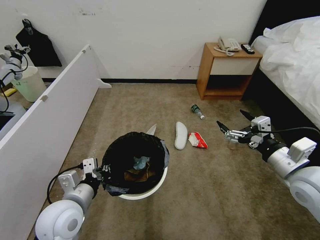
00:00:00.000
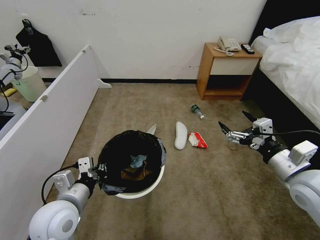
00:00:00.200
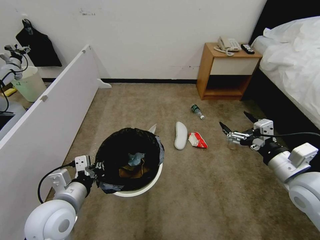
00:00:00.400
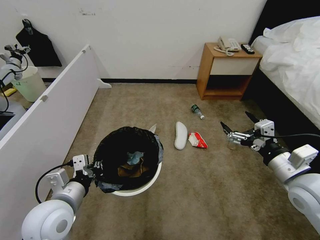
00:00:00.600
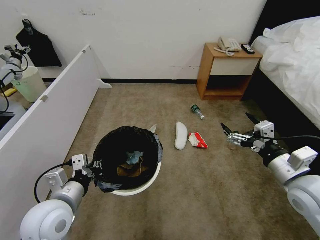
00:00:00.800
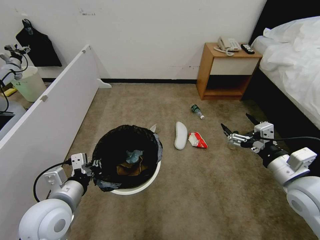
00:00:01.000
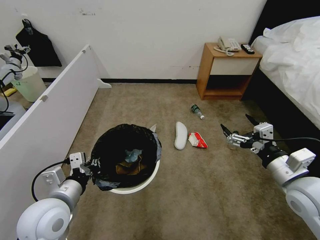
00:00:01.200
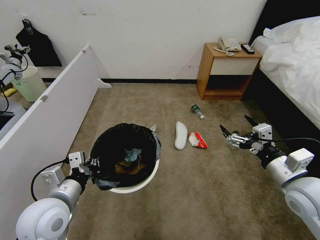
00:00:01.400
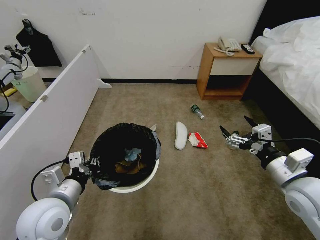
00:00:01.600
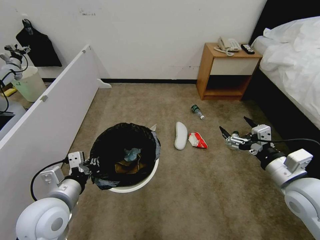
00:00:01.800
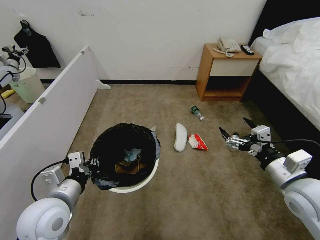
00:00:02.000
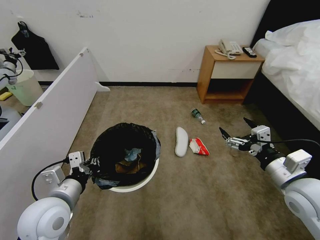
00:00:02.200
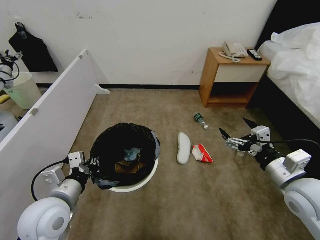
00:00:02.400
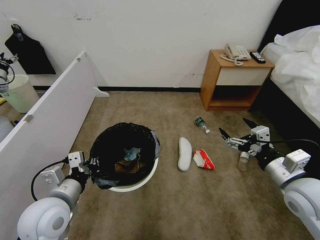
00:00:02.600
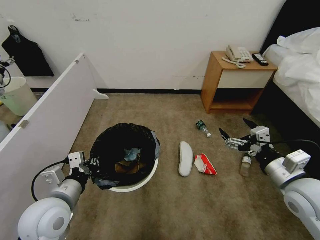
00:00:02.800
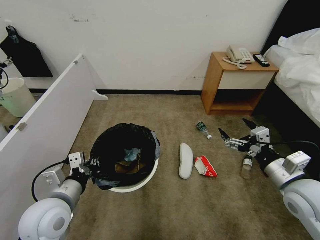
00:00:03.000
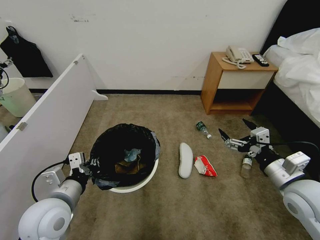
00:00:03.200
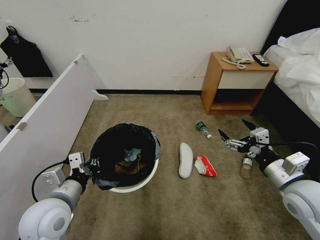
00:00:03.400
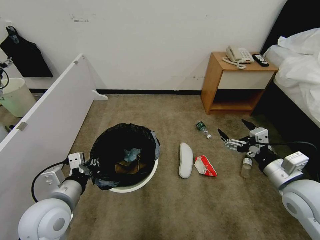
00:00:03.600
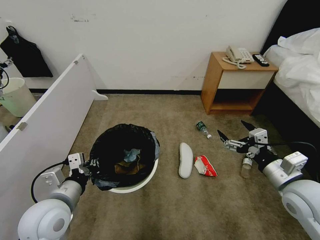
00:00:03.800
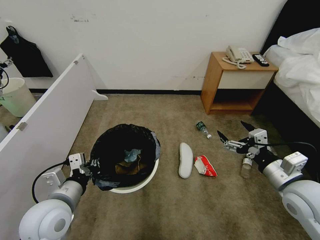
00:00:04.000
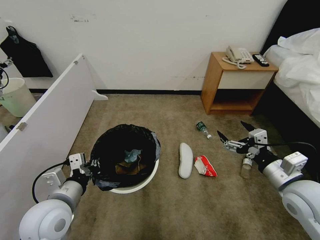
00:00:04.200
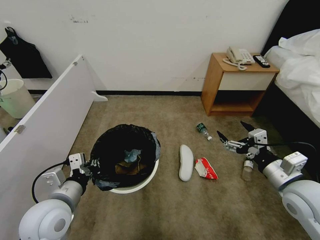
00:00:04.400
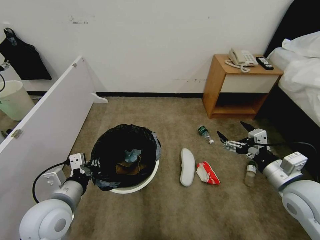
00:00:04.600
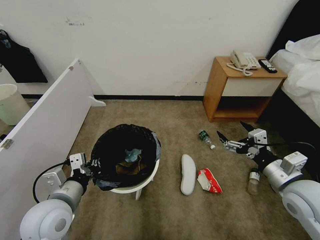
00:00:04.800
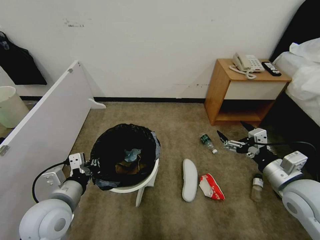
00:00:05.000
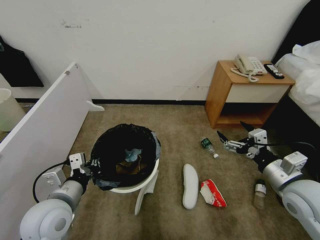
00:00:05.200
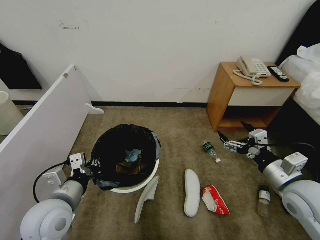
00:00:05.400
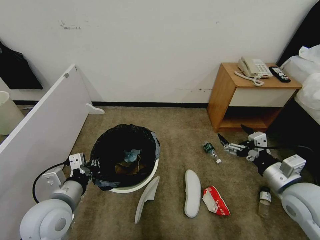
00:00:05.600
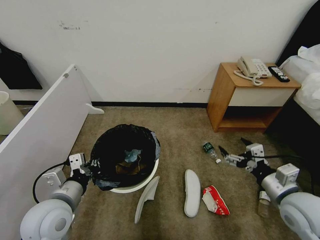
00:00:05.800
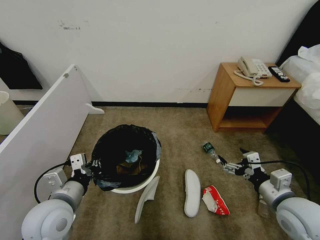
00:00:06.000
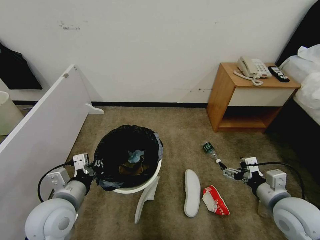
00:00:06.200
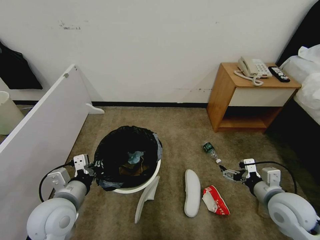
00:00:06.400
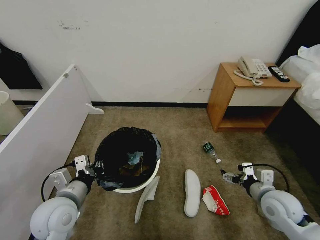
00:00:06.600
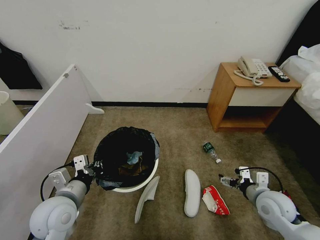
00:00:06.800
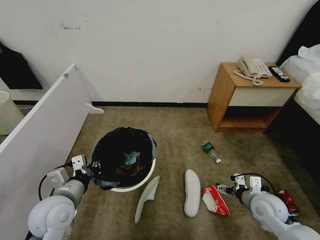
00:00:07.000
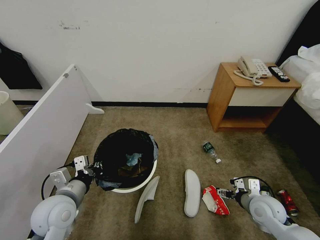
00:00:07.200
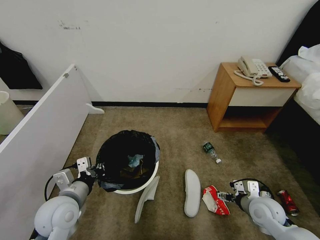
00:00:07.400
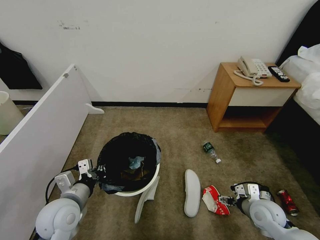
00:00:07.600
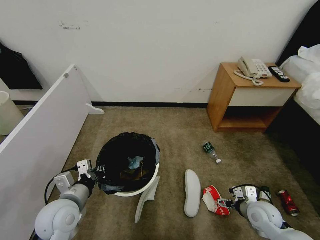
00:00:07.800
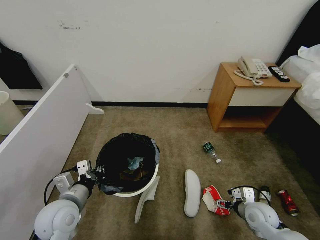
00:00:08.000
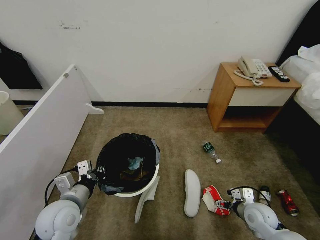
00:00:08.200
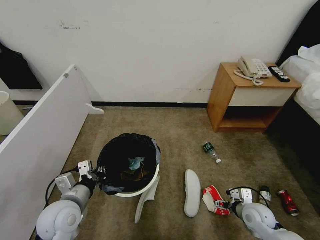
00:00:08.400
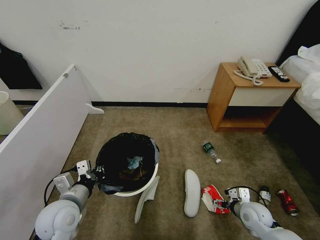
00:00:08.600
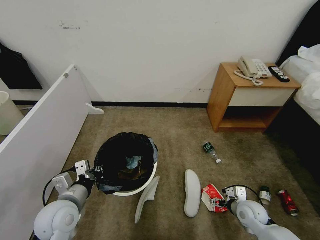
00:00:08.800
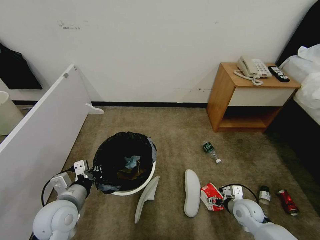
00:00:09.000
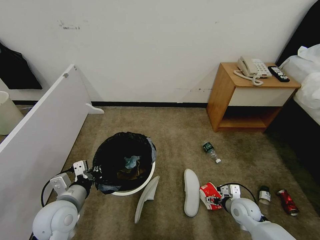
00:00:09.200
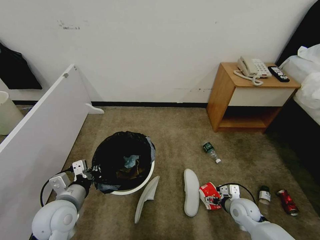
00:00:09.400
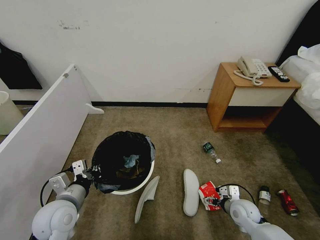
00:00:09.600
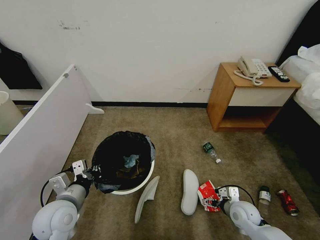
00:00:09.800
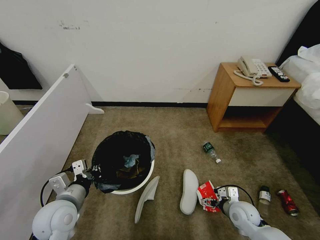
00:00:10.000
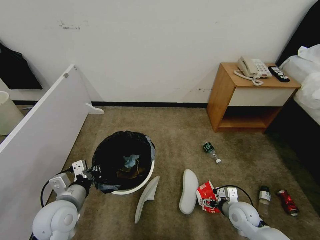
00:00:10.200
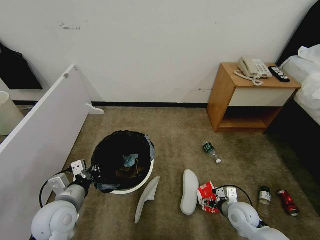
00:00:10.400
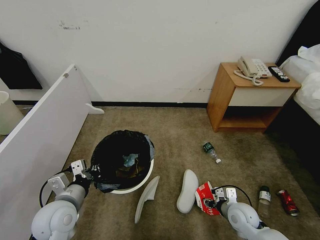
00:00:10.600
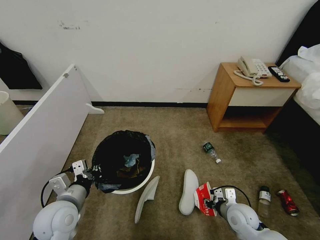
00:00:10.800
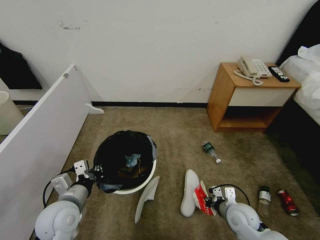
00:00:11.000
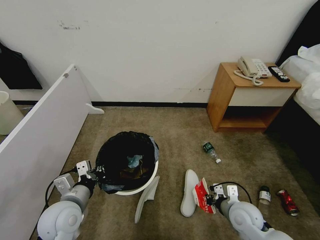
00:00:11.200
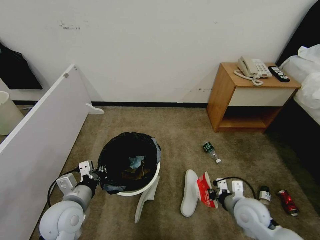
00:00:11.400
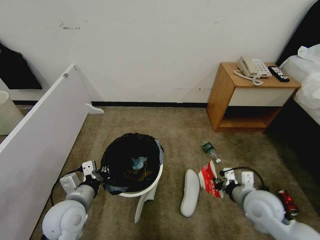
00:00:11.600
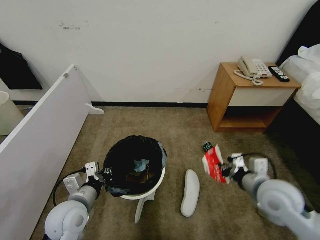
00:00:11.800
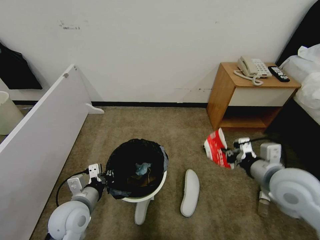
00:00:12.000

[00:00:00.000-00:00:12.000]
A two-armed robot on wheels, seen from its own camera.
Task of the whole recording: Pick up the trash bin, then pick up the garbage from the floor and place it into the trash bin.
00:00:00.000 to 00:00:01.600: The grippers stay close to where they were, moving slightly.
00:00:03.000 to 00:00:04.400: Neither gripper changes place.
00:00:04.400 to 00:00:06.000: The right gripper shifts roughly 5 cm downward.
00:00:06.000 to 00:00:07.600: The right gripper travels downward by approximately 15 cm.
00:00:07.600 to 00:00:09.000: The right gripper heads downward, covering roughly 5 cm.
00:00:09.000 to 00:00:10.400: The grippers stay close to where they were, moving slightly.
00:00:10.400 to 00:00:12.000: The right gripper travels upward by approximately 25 cm, and closes.

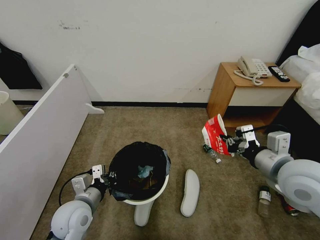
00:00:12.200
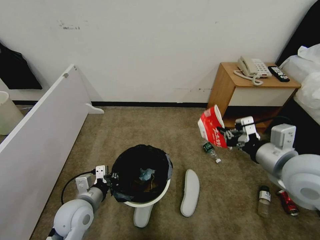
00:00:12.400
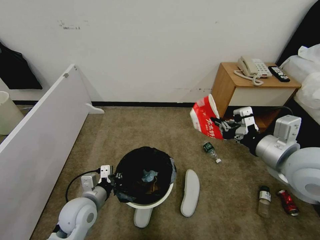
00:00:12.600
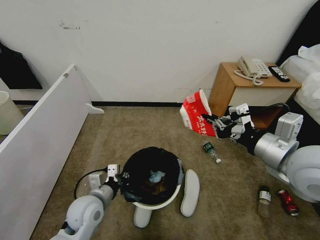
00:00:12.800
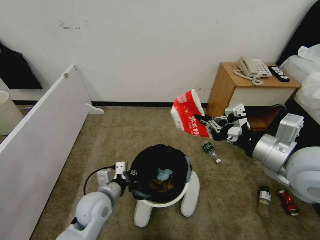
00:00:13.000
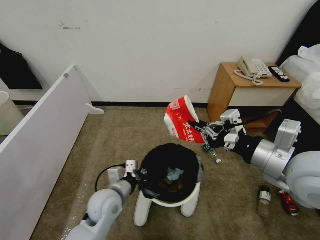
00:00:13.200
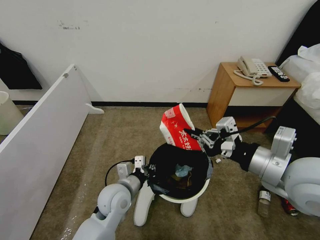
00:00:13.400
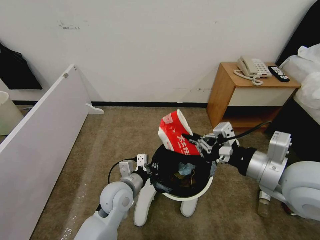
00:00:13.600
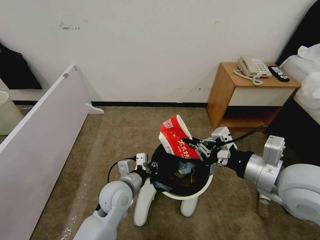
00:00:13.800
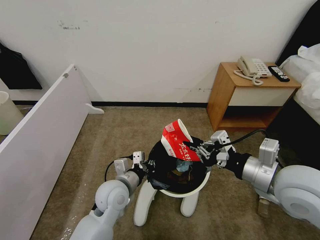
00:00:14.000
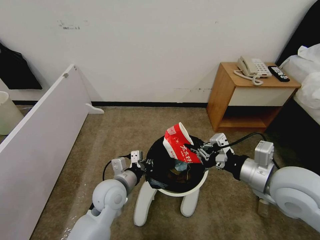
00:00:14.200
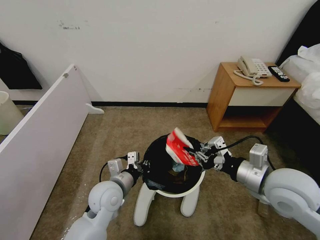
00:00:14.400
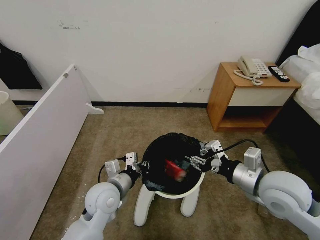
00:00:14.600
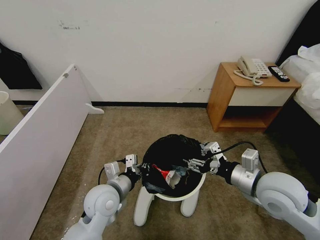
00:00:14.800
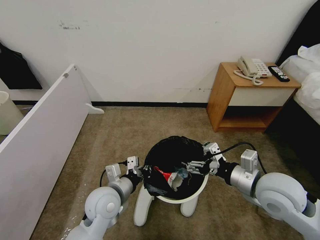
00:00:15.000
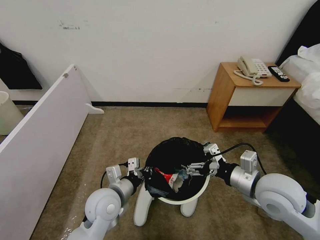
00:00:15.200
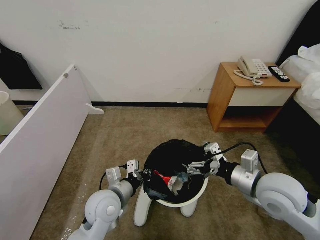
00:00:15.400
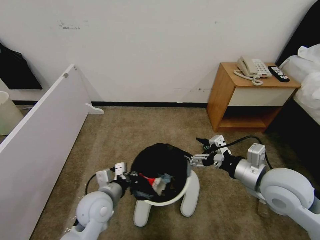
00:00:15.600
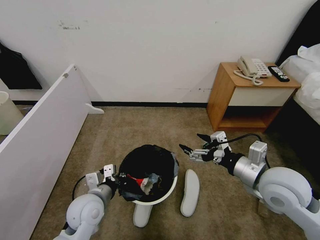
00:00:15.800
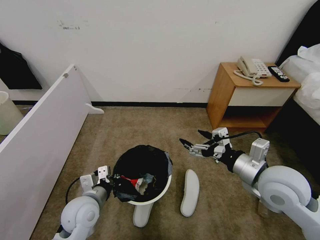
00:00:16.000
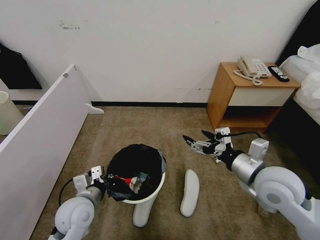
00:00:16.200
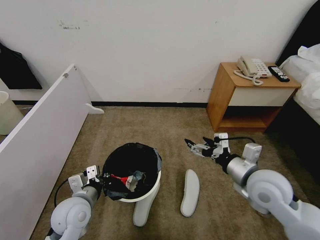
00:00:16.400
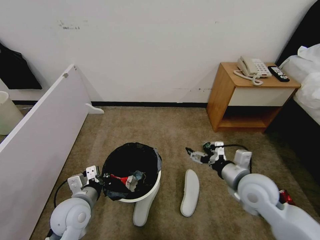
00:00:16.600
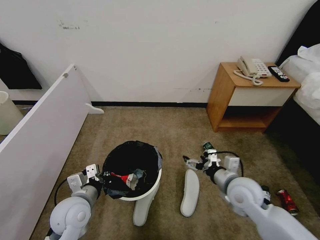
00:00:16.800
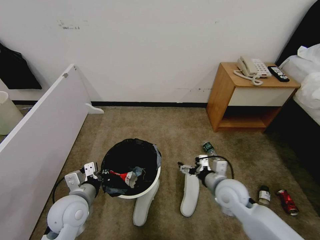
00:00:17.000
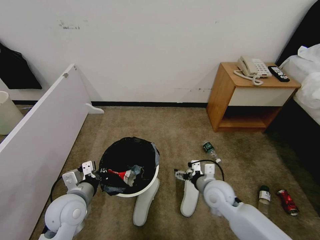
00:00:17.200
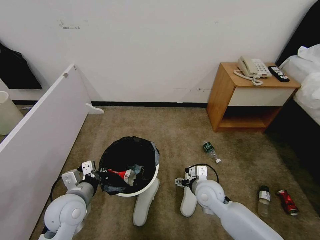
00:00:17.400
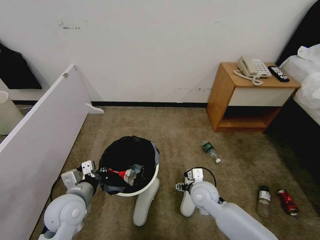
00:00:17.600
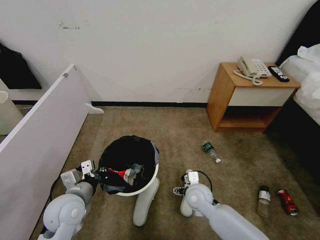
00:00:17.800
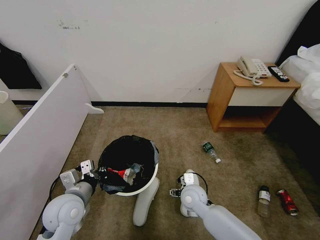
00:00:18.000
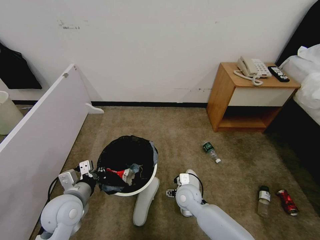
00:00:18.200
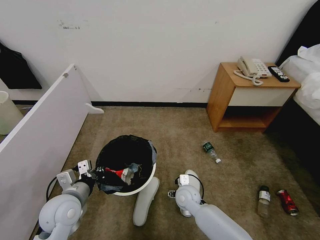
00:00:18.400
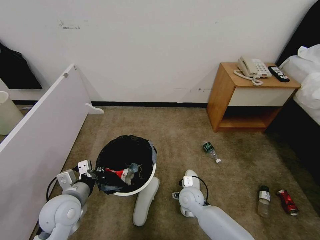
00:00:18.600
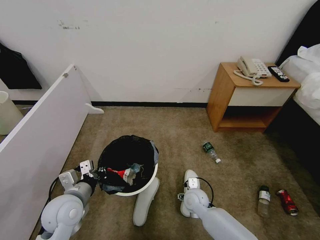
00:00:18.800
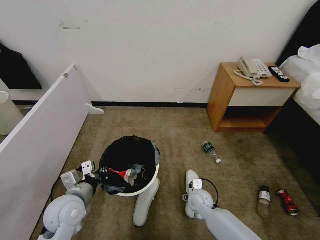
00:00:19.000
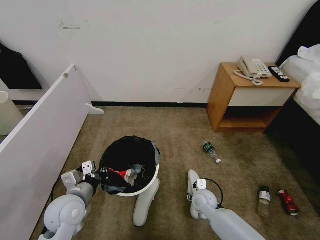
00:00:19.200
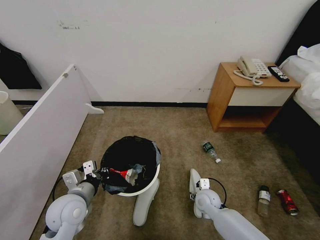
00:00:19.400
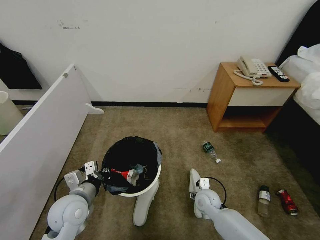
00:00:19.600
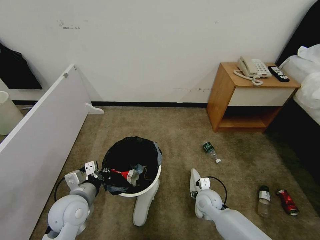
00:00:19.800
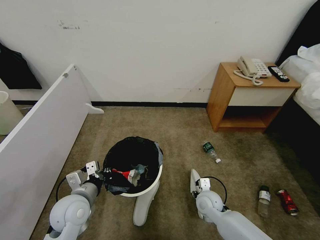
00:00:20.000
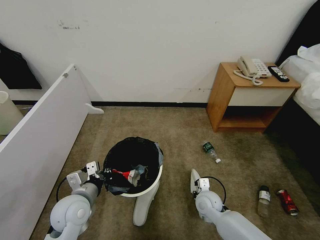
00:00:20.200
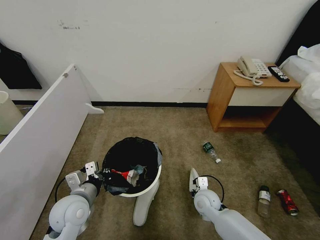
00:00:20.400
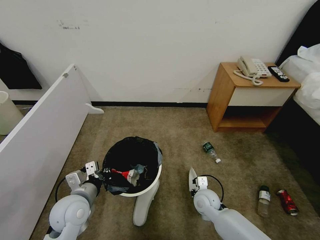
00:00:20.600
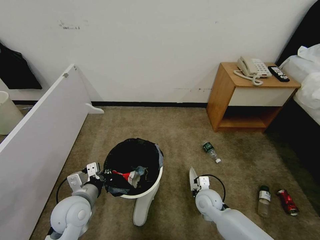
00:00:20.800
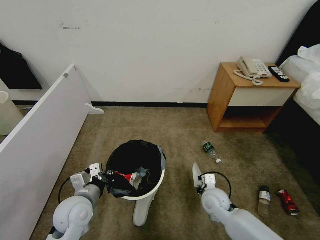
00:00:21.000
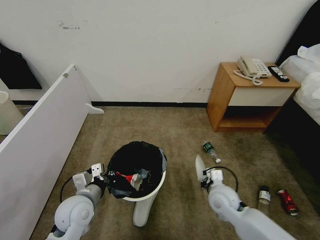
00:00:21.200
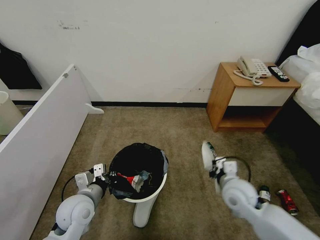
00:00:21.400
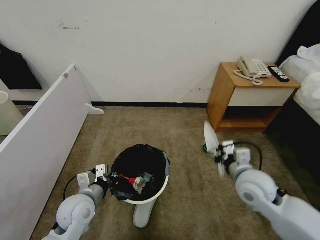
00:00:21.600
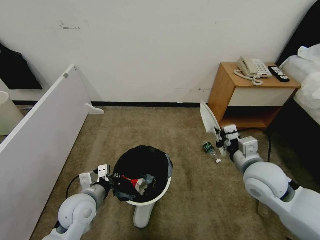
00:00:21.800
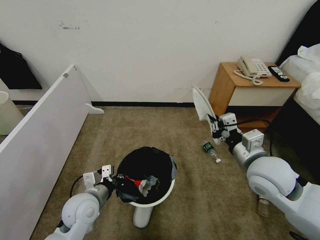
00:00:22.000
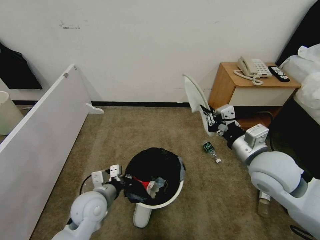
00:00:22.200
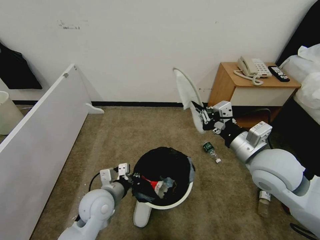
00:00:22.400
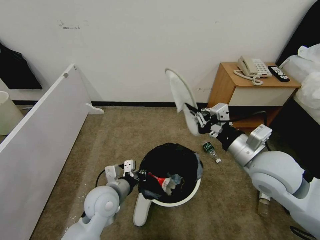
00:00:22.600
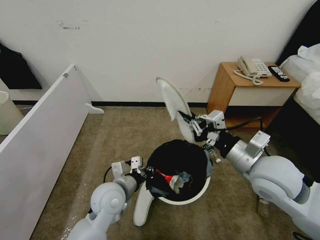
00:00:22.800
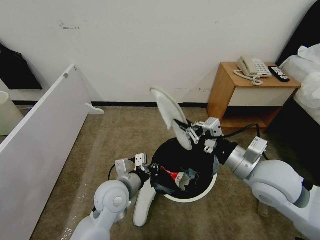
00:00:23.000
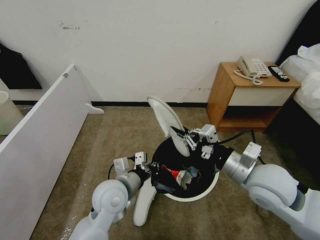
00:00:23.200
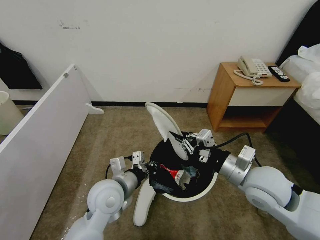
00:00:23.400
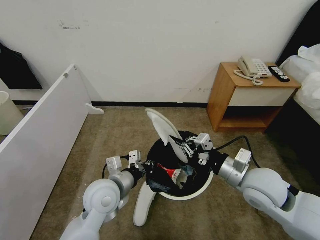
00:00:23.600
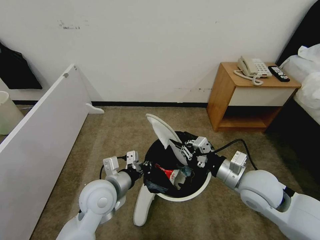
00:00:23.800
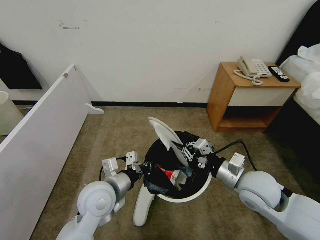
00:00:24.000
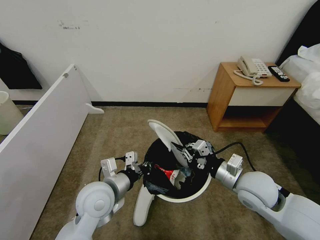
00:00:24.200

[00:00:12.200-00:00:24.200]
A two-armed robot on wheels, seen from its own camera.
Task of the whole recording: Pick up the trash bin, then pick up the garbage from the floor and place it into the trash bin.
00:00:12.200 to 00:00:13.800: The left gripper goes about 15 cm to the right and forward; the right gripper shifts by some 5 cm.
00:00:13.800 to 00:00:15.200: The right gripper is displaced downward by some 10 cm, and opens its fingers.
00:00:15.200 to 00:00:16.600: The left gripper travels to the left by approximately 10 cm; the right gripper shifts some 5 cm downward.
00:00:16.600 to 00:00:18.200: The right gripper is displaced downward and to the left by some 25 cm.
00:00:18.200 to 00:00:19.800: The right gripper travels to the right by some 10 cm.
00:00:19.800 to 00:00:21.200: The right gripper goes about 10 cm upward, and closes.
00:00:21.200 to 00:00:22.600: The left gripper travels to the right by some 10 cm; the right gripper moves upward, some 20 cm.
00:00:22.600 to 00:00:24.200: The left gripper ends up roughly 5 cm from where it was; the right gripper goes roughly 10 cm downward.
